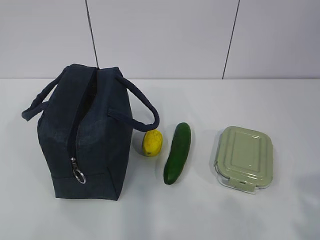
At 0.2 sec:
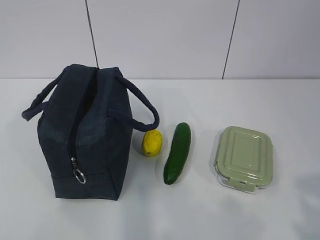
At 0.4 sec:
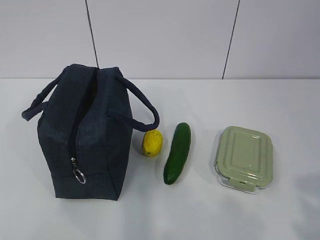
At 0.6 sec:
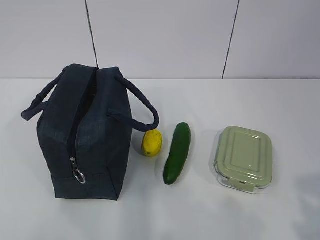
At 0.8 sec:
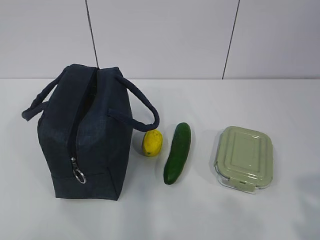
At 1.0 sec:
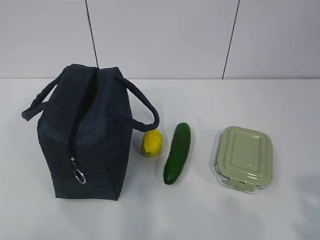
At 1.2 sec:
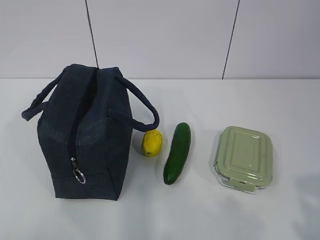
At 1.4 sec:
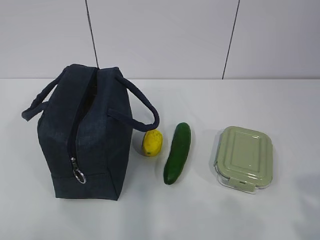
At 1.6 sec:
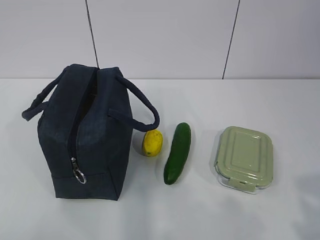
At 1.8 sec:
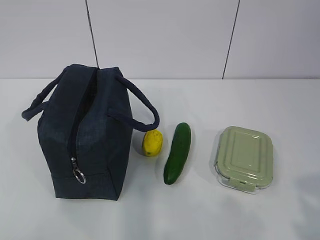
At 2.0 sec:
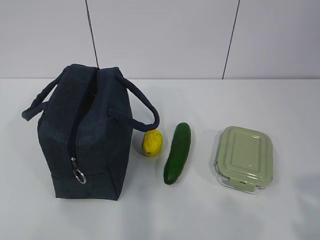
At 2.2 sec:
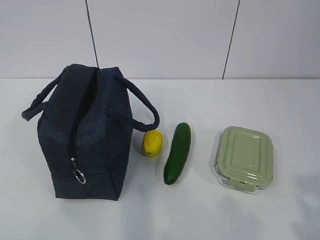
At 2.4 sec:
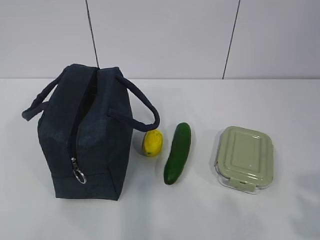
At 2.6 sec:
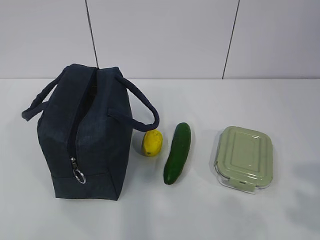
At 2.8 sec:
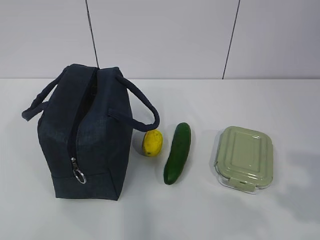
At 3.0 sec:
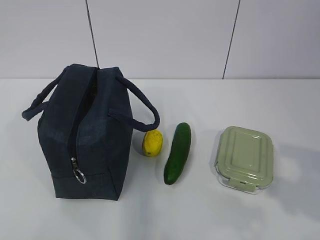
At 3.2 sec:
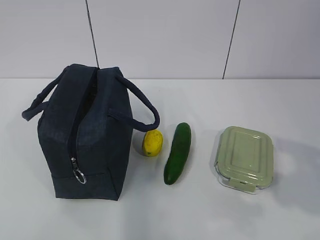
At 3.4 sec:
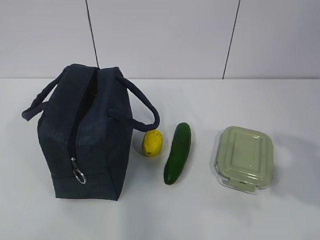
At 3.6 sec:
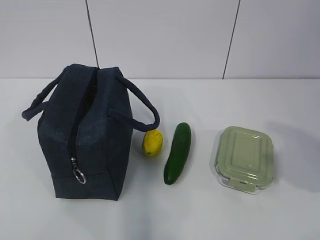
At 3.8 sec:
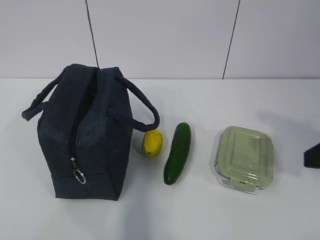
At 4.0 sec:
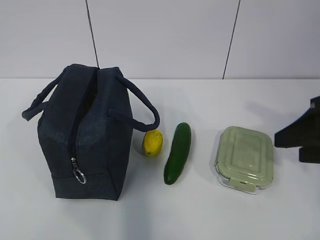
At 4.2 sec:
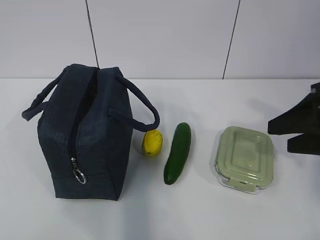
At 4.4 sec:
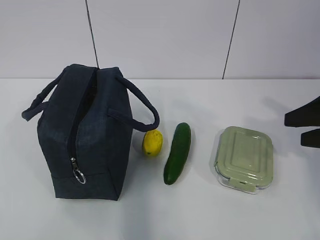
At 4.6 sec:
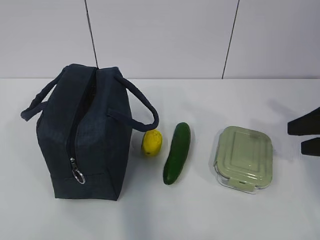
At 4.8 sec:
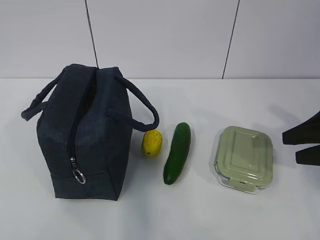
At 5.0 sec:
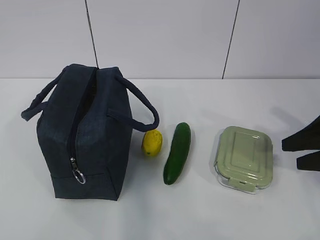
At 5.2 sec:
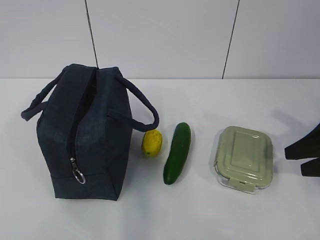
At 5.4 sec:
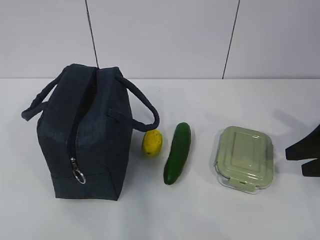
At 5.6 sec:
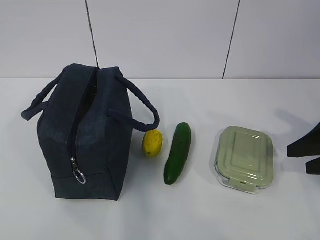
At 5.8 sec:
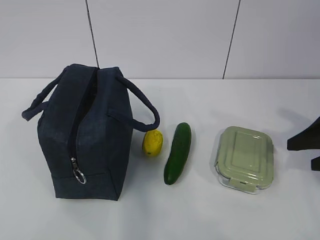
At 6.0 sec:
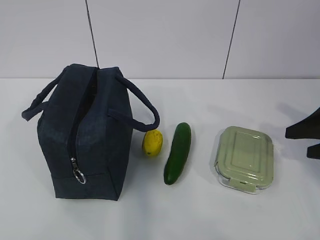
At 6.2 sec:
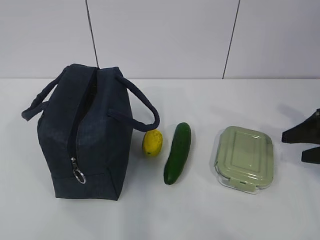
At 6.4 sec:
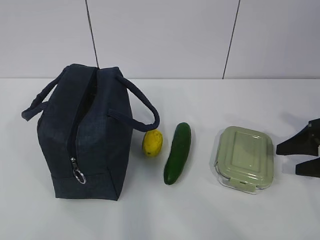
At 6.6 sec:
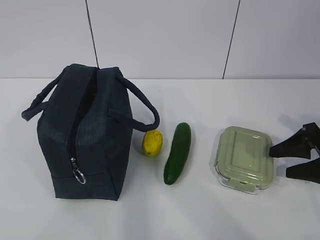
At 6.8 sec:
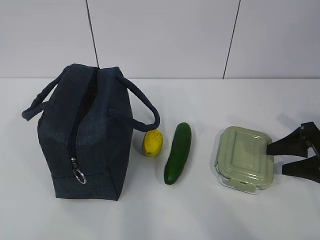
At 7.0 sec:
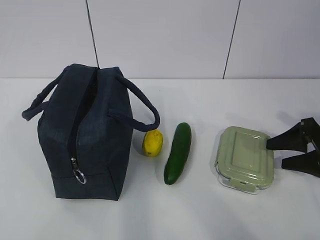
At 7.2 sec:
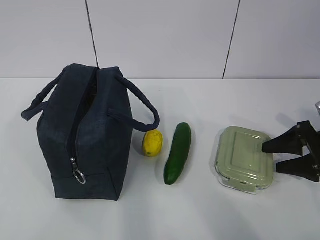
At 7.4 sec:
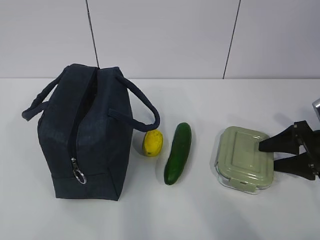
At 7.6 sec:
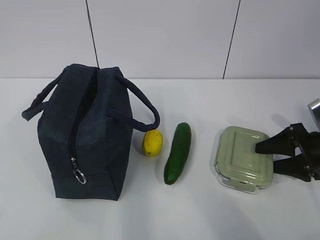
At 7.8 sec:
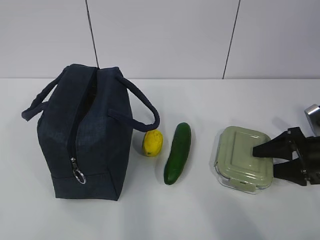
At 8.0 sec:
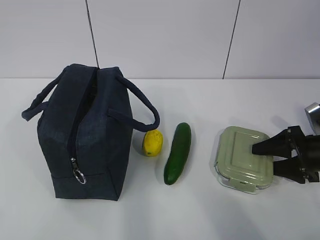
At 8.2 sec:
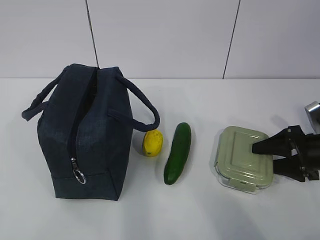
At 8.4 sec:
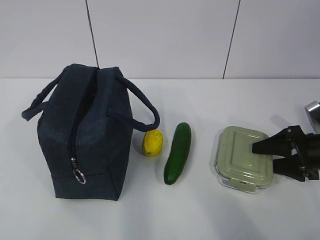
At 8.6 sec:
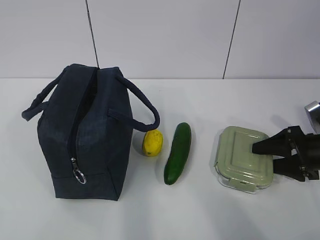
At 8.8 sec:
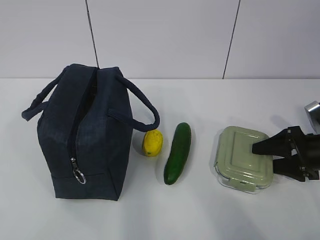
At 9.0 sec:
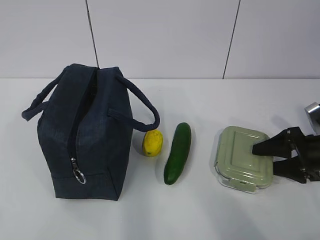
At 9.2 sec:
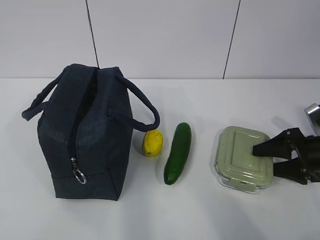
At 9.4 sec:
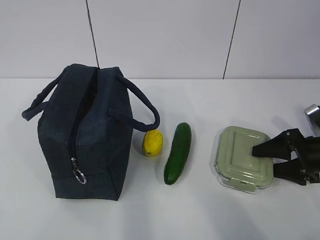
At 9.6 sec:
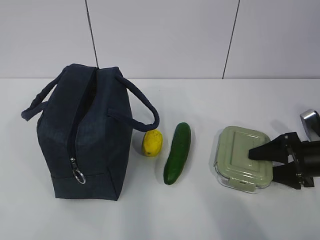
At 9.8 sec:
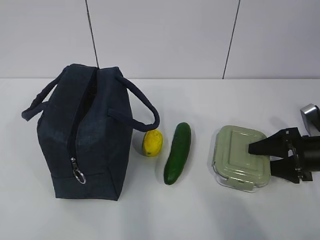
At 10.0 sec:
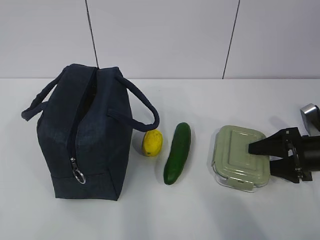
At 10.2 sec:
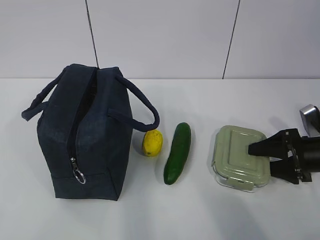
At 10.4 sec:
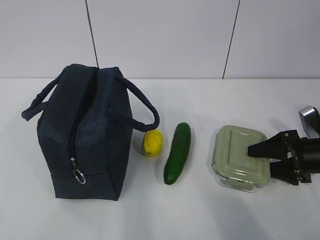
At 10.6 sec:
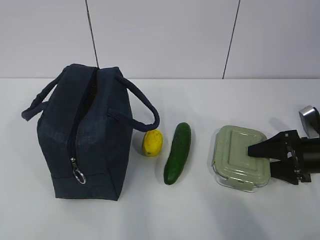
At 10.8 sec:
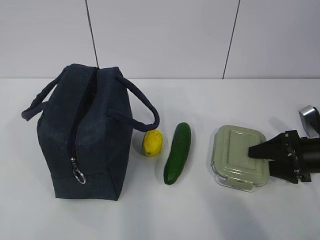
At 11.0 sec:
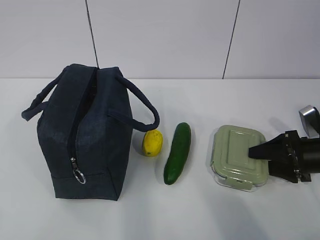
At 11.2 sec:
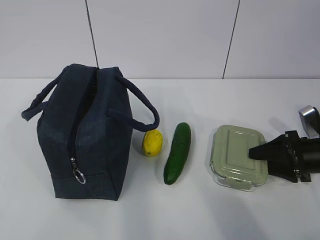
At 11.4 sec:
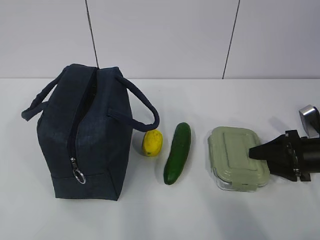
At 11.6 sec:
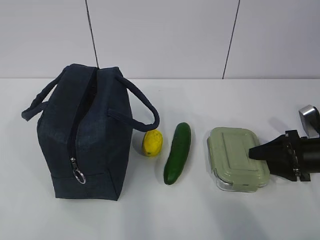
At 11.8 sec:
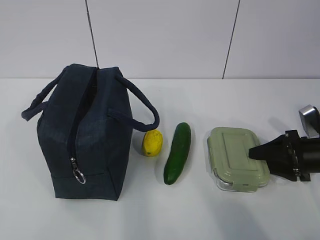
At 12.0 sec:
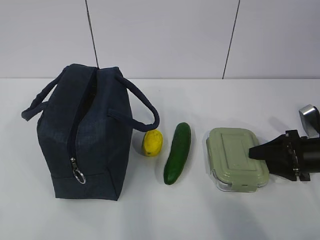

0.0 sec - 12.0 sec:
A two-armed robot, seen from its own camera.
Step, 0.0 sec - 11.2 sec: Grab the lunch box with your right hand.
3.0 sec - 4.4 sec: The right gripper moves forward, some 15 cm.
4.4 sec - 6.0 sec: The right gripper travels downward by approximately 5 cm.
6.0 sec - 7.6 sec: The right gripper heads downward, covering about 10 cm.
7.6 sec - 9.0 sec: The two grippers keep their place.
9.0 sec - 10.4 sec: There are only small adjustments of the grippers.
10.4 sec - 12.0 sec: The two grippers keep their place.

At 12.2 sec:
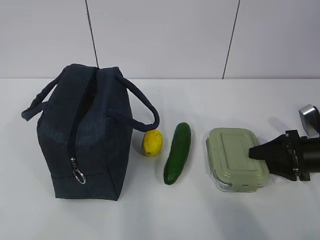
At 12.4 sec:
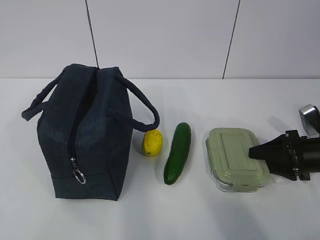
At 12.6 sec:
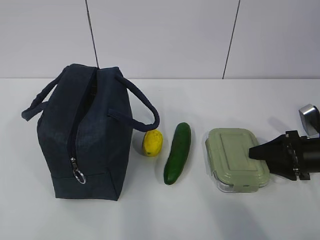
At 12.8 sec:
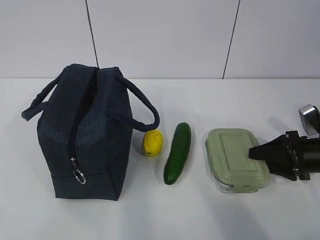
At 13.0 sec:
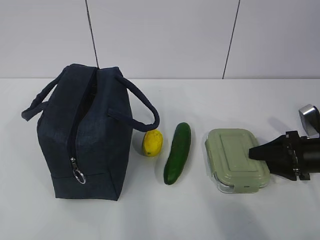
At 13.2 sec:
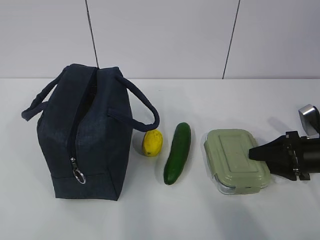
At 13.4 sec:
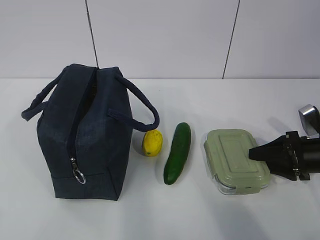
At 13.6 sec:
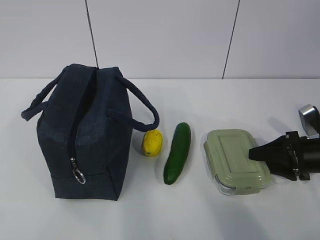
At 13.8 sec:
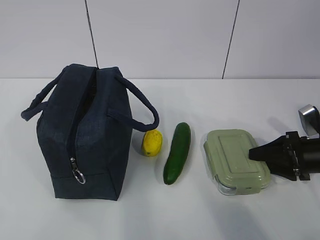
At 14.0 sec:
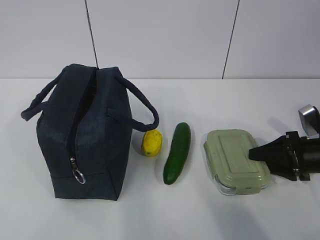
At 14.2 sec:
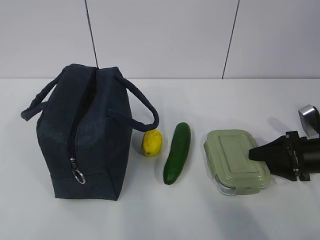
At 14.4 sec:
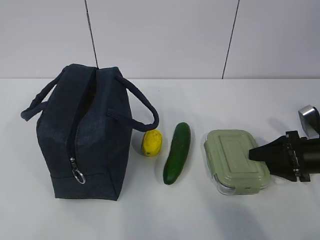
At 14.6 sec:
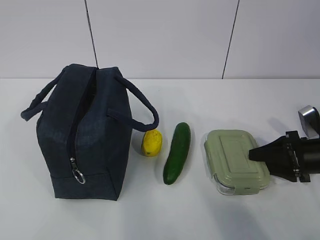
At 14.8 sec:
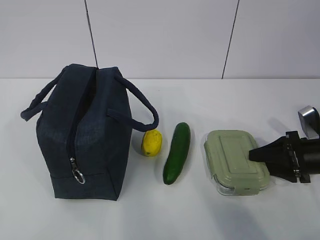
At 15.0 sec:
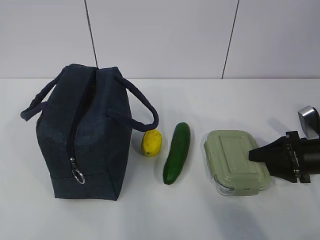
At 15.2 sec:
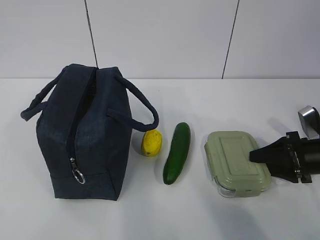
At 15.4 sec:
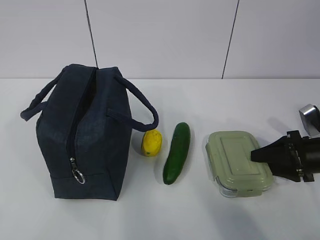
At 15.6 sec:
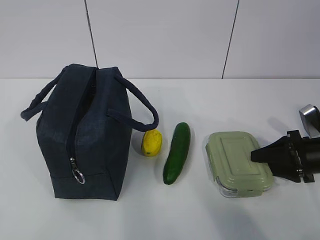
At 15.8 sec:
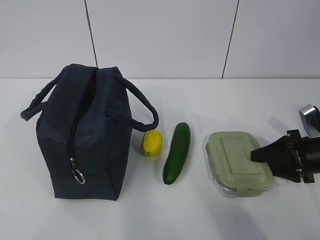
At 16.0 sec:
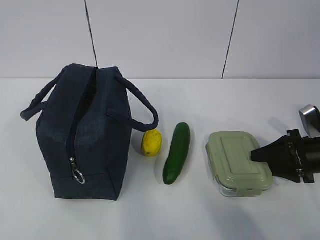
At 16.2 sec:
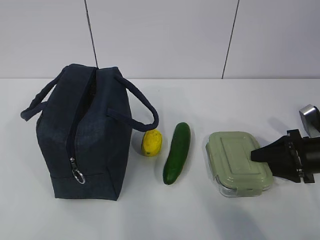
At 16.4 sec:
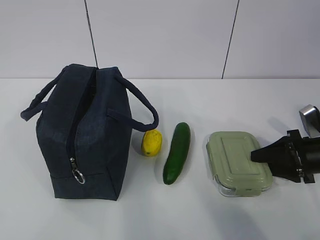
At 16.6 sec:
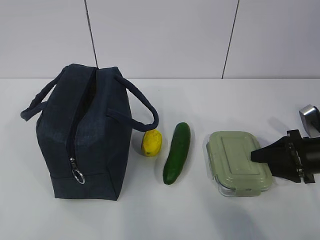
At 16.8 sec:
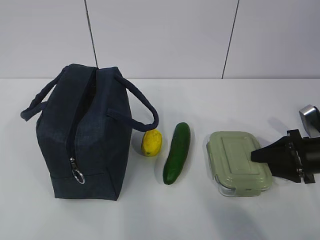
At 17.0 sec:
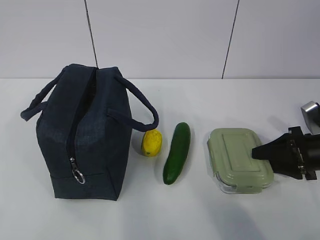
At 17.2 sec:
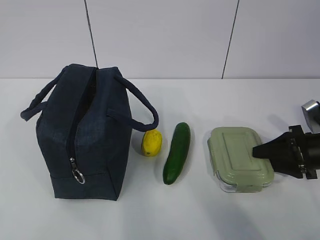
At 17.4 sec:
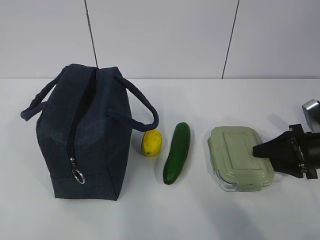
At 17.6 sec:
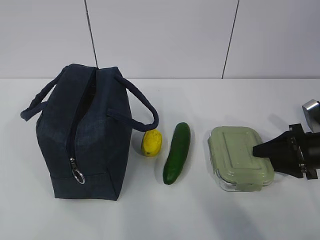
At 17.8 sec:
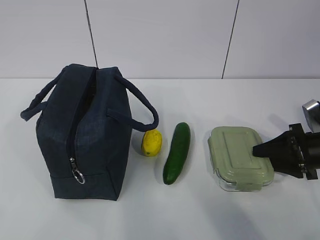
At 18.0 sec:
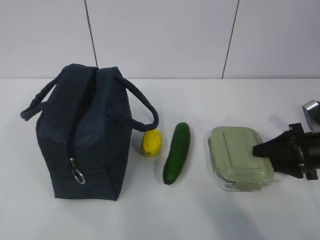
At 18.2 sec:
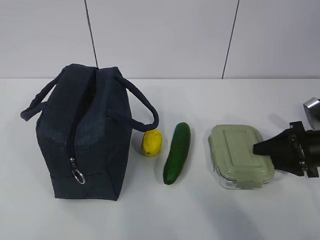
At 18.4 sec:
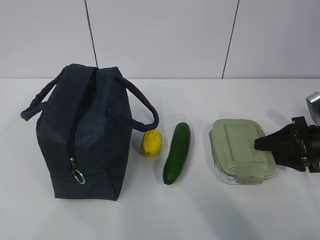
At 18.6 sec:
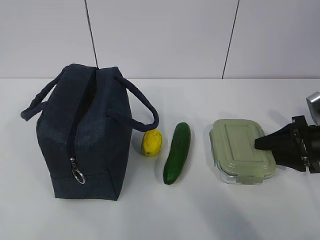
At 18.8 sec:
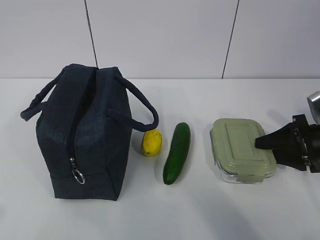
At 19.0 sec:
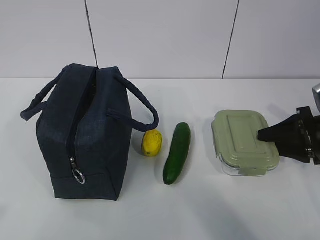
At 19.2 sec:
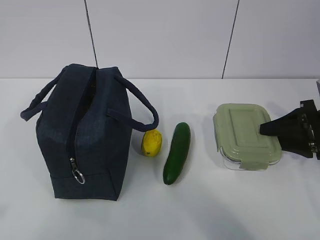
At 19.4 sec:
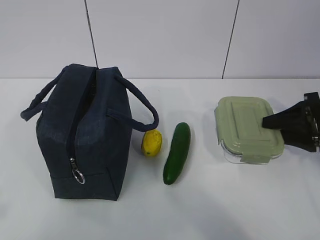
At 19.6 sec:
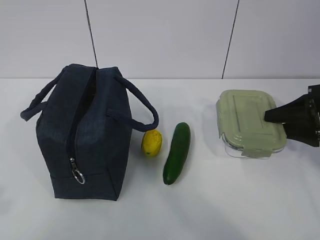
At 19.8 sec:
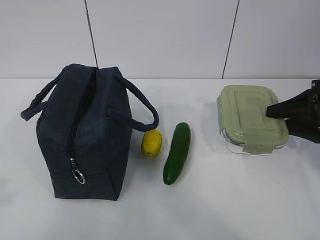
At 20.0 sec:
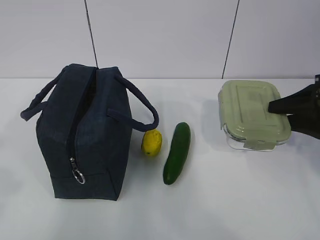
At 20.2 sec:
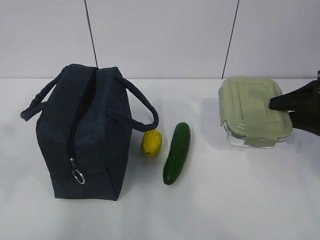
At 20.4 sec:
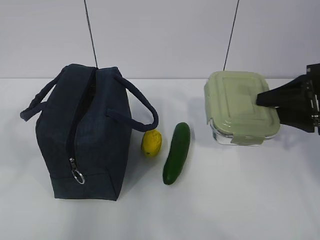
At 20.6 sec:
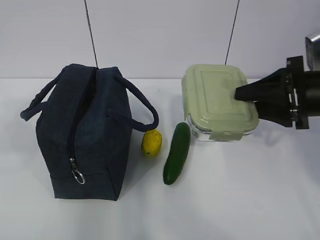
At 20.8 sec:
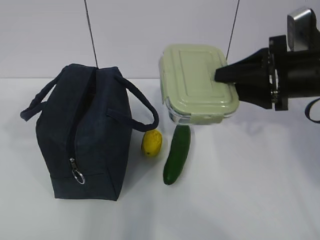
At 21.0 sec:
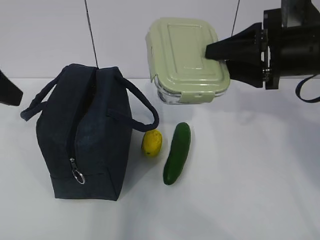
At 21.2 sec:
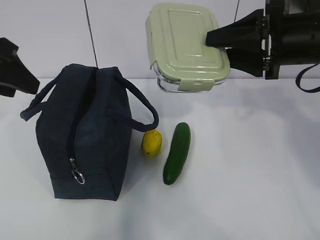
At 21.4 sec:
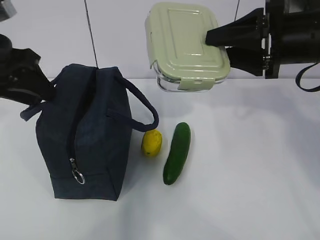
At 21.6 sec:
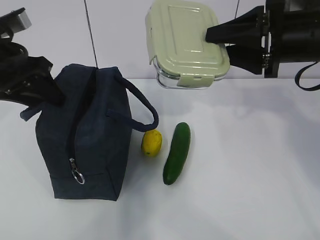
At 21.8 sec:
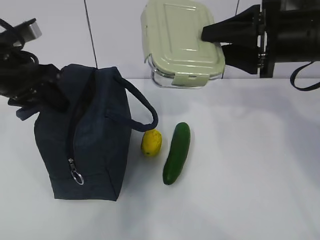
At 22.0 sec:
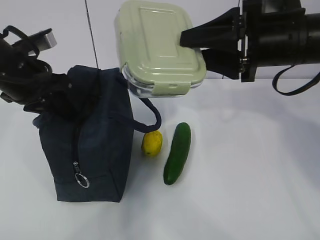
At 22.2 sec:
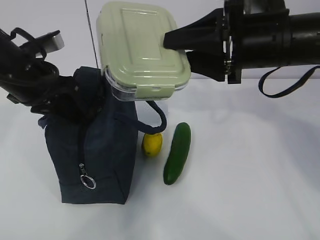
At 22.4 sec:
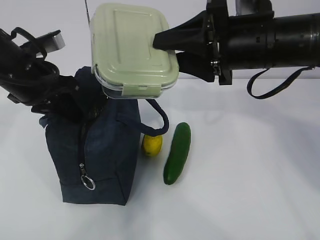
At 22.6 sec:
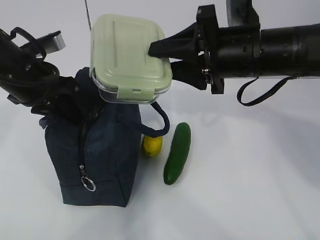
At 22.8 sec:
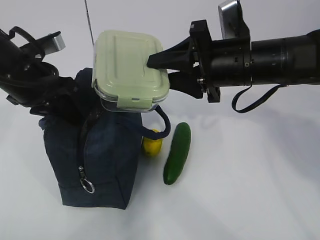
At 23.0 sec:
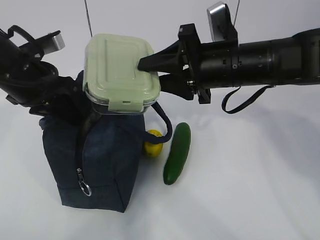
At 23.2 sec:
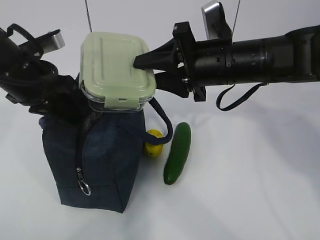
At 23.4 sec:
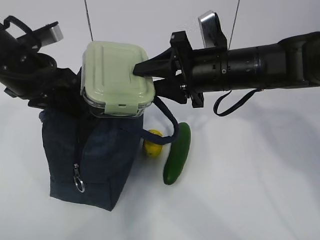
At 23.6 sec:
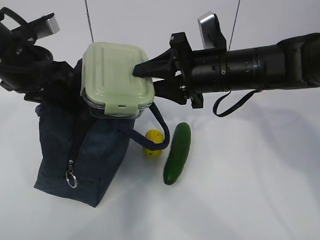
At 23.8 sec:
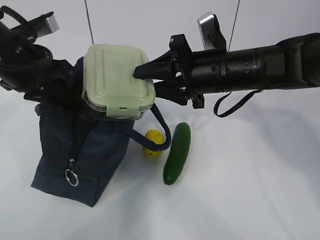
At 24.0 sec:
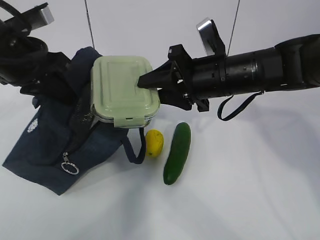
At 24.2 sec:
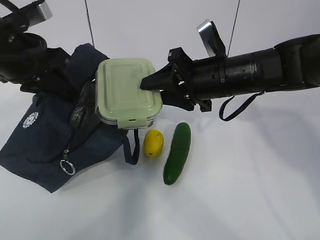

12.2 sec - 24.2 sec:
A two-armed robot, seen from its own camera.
Step, 12.2 sec - 19.6 sec: Grab the lunch bag with your left hand.
Step, 19.8 sec - 23.0 sec: Place it into the bag with your right hand.
12.2 sec - 16.6 sec: The two grippers keep their place.
16.6 sec - 18.2 sec: Both grippers stay about where they are.
18.2 sec - 19.8 sec: The right gripper shifts about 10 cm upward.
19.8 sec - 21.2 sec: The right gripper goes some 15 cm to the left and upward. Meanwhile the left gripper shifts roughly 25 cm forward.
21.2 sec - 22.6 sec: The left gripper heads downward and forward, covering about 10 cm, and closes its fingers, while the right gripper heads to the left, covering about 10 cm.
22.6 sec - 24.2 sec: The right gripper goes some 5 cm downward.
